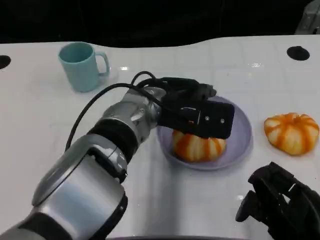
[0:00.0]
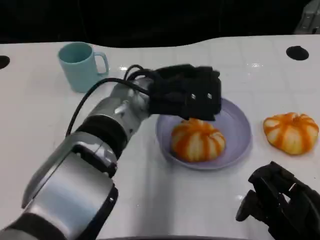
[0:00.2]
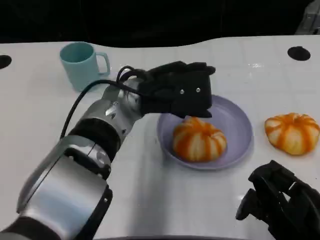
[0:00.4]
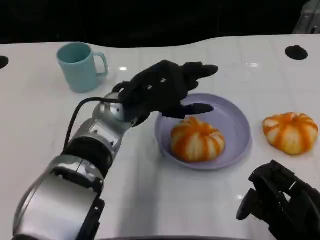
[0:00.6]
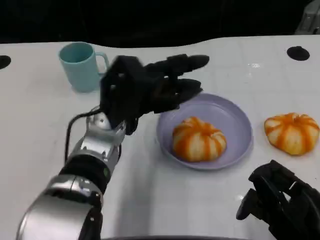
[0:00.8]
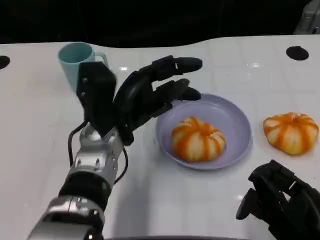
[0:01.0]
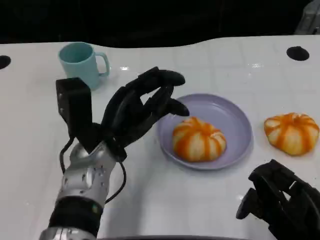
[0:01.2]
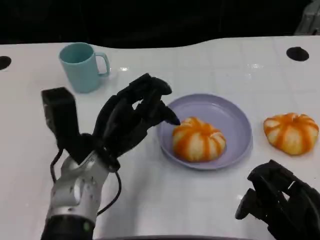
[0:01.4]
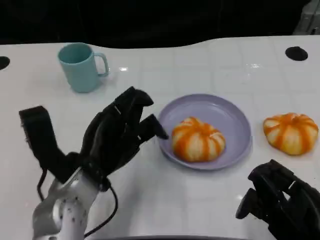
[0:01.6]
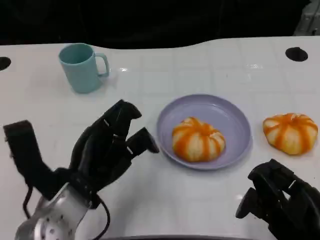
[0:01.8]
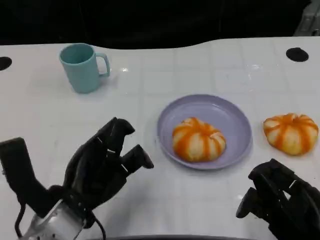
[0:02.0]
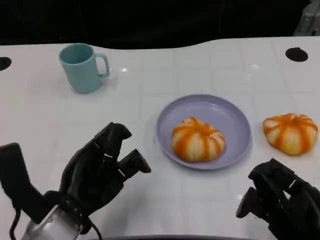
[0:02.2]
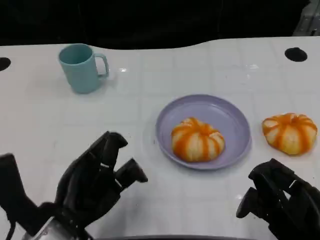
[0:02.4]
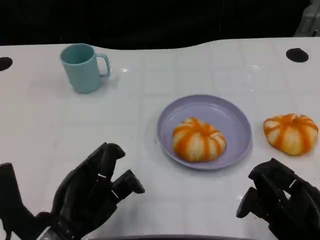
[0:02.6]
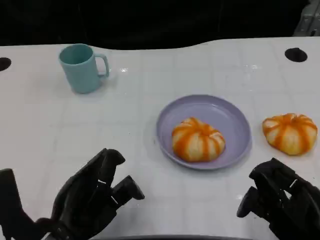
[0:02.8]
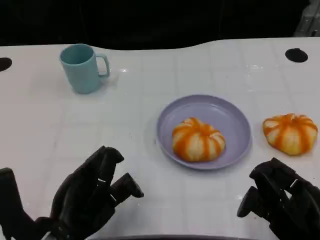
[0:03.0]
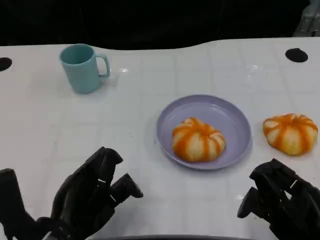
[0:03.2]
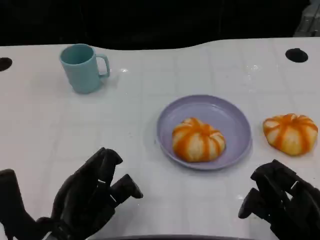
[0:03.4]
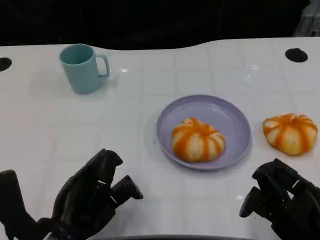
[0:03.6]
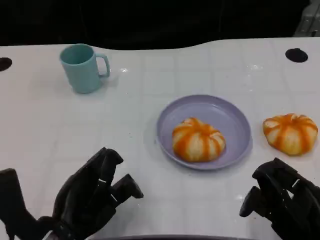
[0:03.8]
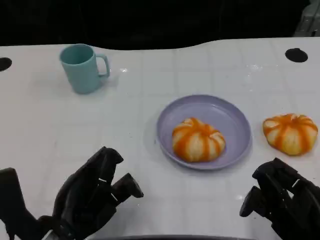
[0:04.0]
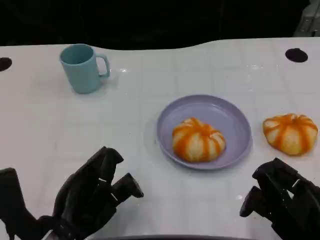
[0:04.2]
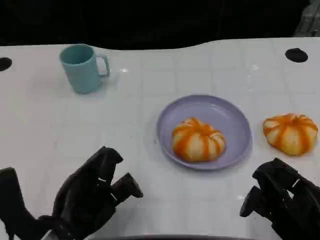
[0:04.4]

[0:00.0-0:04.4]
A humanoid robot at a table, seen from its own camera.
Task of the whole recording: Grasp the bread from the table and place it into the plate.
0:00.0 to 0:01.4: The left hand is displaced to the left, downward and backward by roughly 15 cm.
0:01.4 to 0:03.0: The left hand goes approximately 10 cm backward.
0:03.0 to 0:04.4: Both hands stay about where they are.
